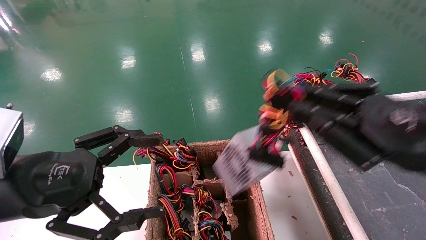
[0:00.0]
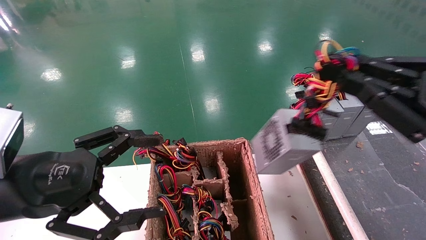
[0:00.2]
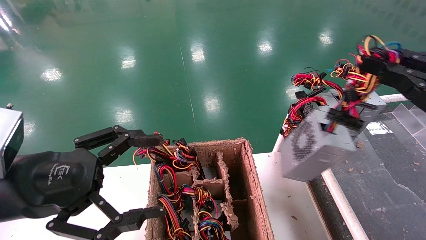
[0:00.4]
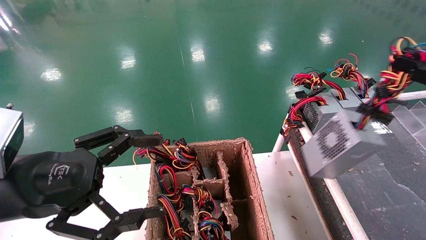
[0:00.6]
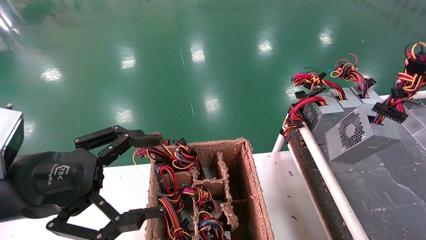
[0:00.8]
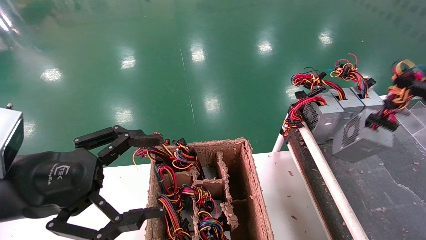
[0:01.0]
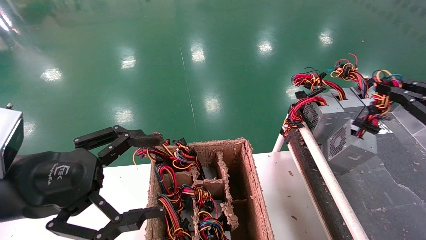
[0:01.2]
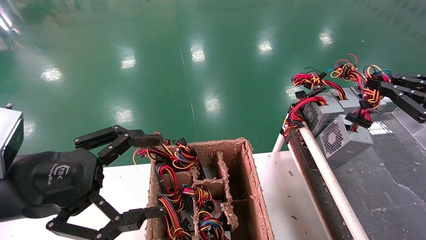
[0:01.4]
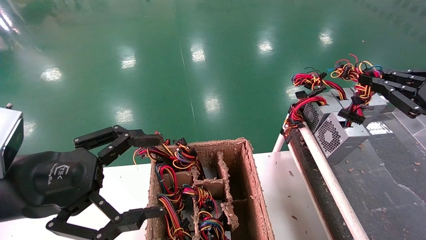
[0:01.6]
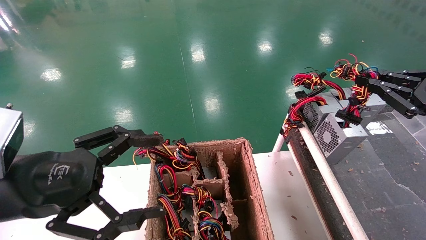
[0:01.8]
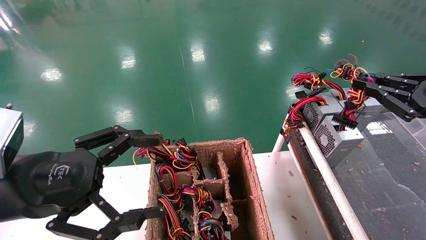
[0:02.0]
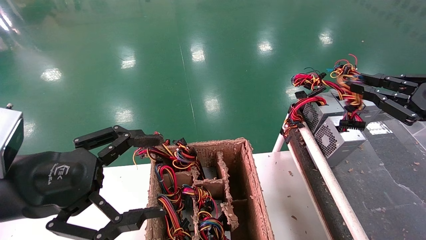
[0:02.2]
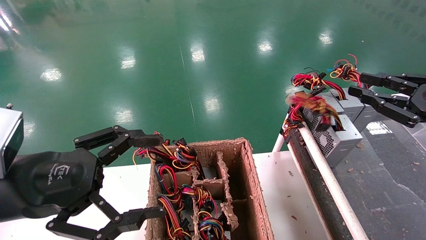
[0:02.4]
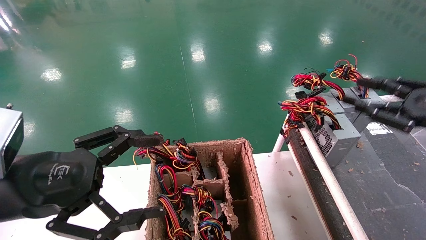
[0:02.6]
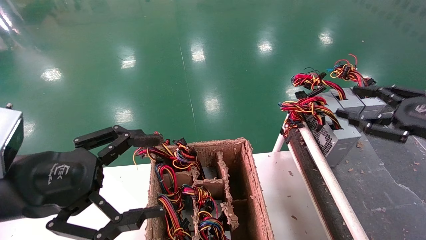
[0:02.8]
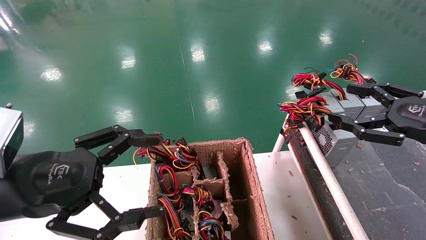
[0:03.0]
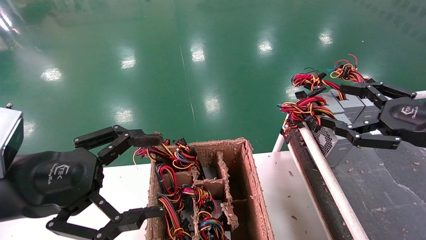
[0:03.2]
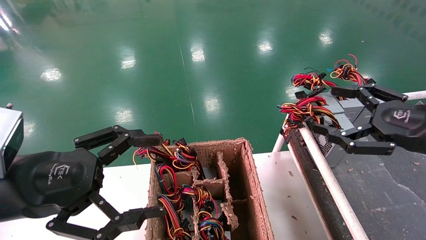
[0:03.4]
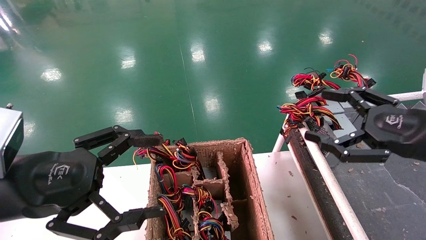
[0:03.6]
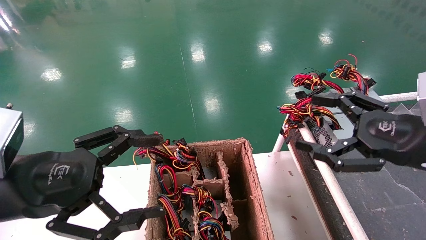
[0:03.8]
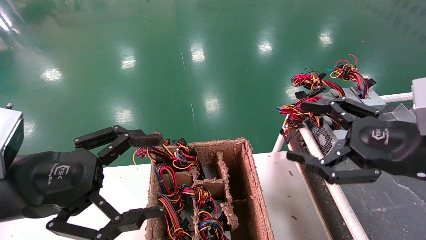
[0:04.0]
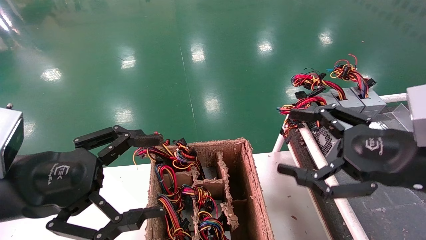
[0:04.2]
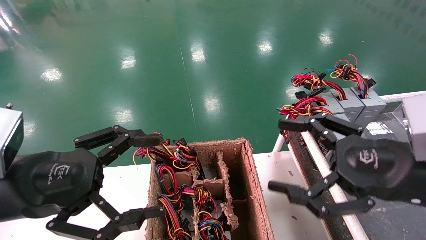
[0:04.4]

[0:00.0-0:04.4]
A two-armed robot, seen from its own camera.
Step, 0:00.0 to 0:02.4: Place the power supply on the operating table.
0:00.0 to 0:01.4: The right gripper heads to the right and forward, covering some 15 cm.
0:01.4 to 0:03.0: The right gripper opens.
0:03.0 to 0:04.4: The right gripper shifts about 10 cm to the left and backward.
